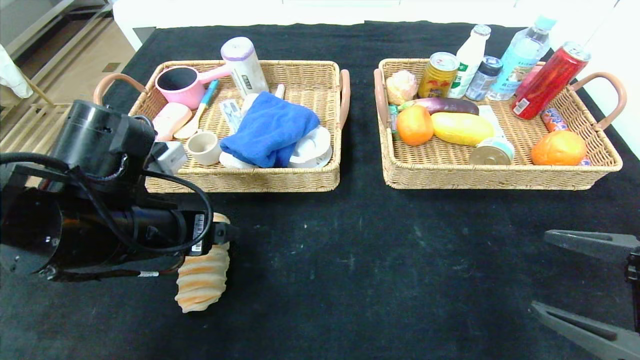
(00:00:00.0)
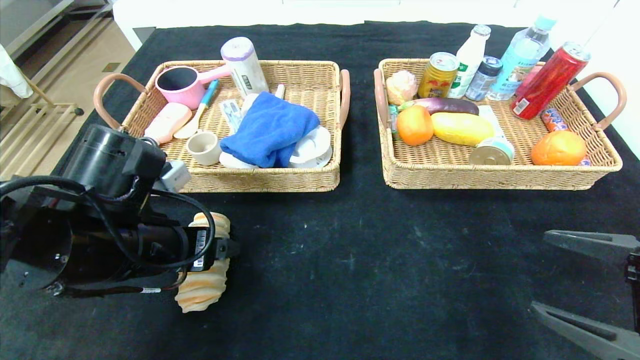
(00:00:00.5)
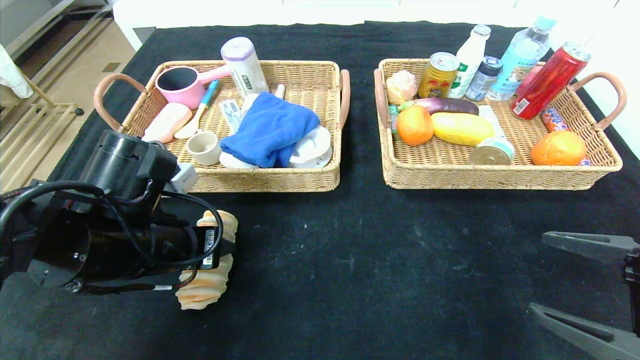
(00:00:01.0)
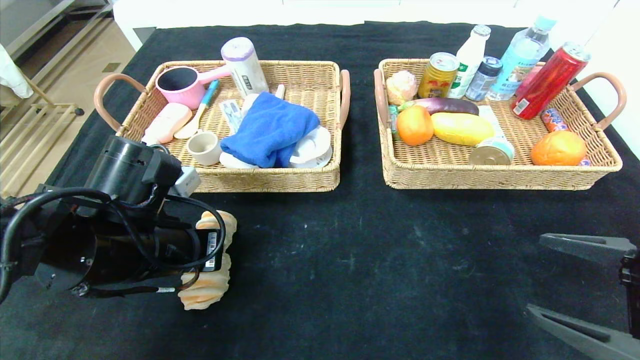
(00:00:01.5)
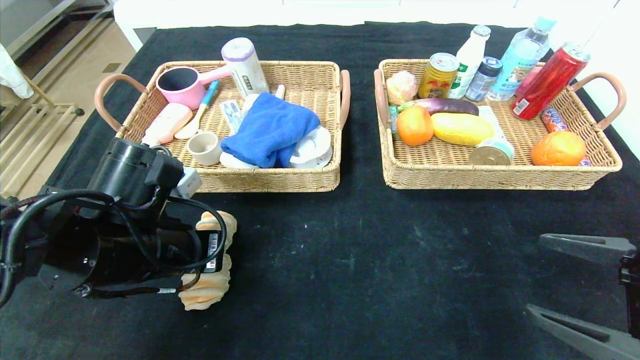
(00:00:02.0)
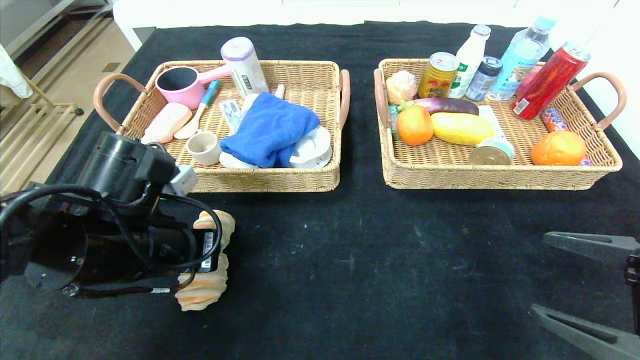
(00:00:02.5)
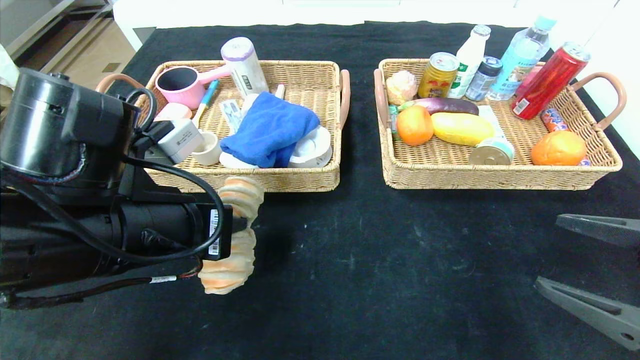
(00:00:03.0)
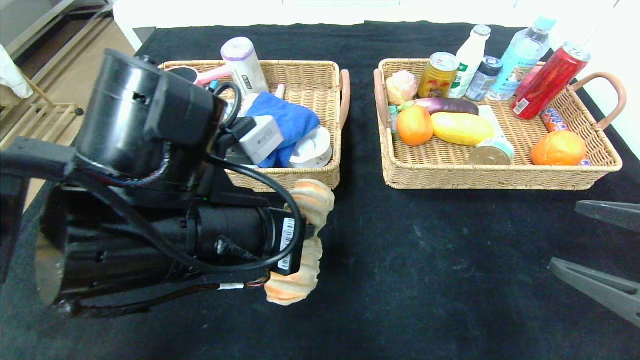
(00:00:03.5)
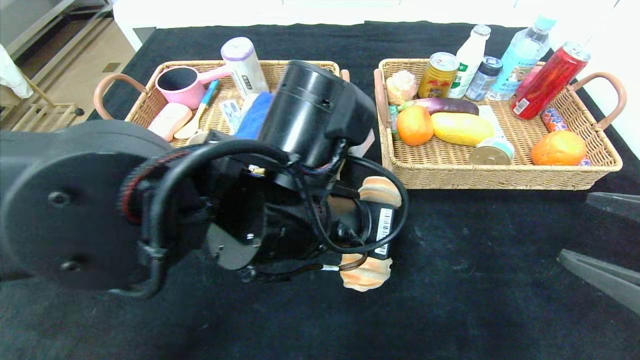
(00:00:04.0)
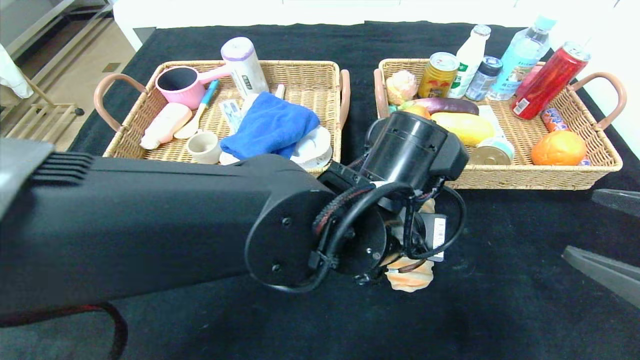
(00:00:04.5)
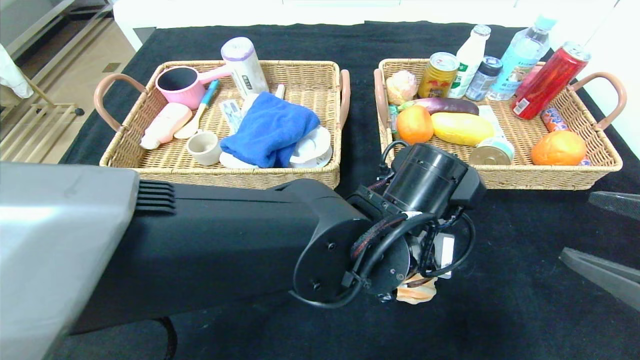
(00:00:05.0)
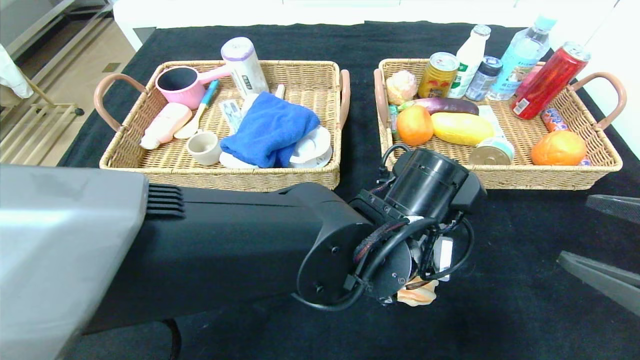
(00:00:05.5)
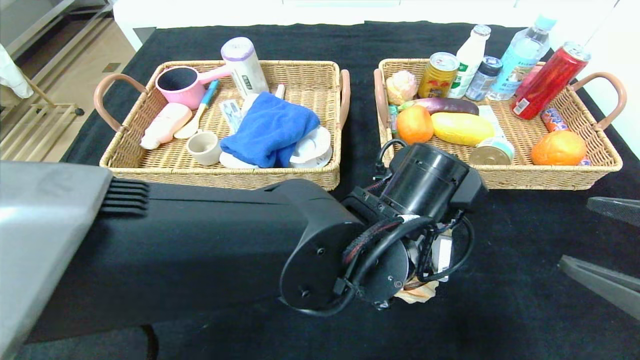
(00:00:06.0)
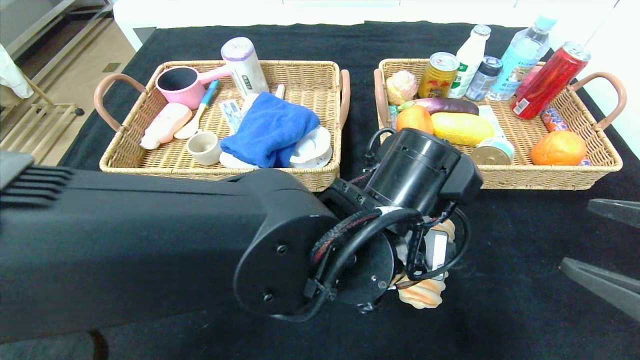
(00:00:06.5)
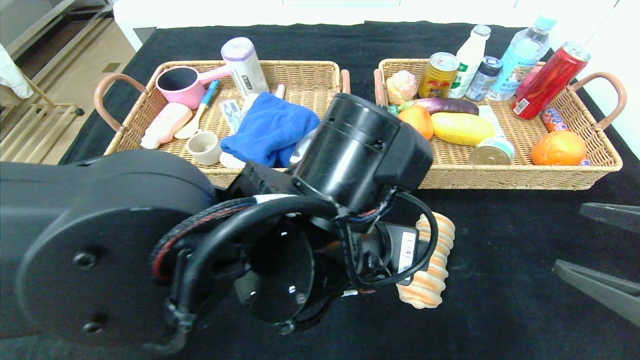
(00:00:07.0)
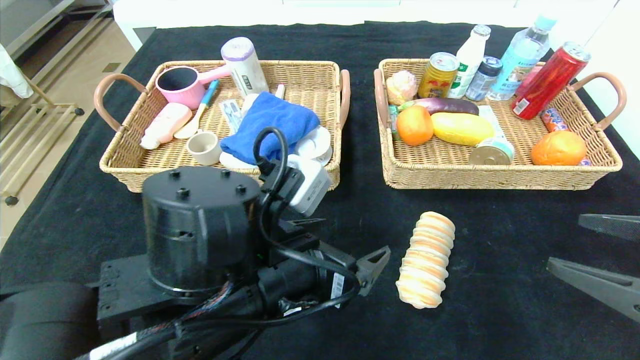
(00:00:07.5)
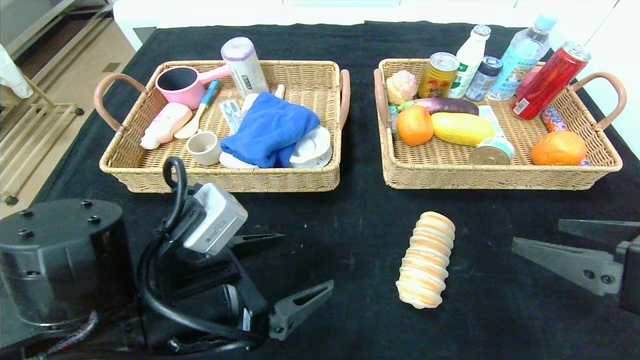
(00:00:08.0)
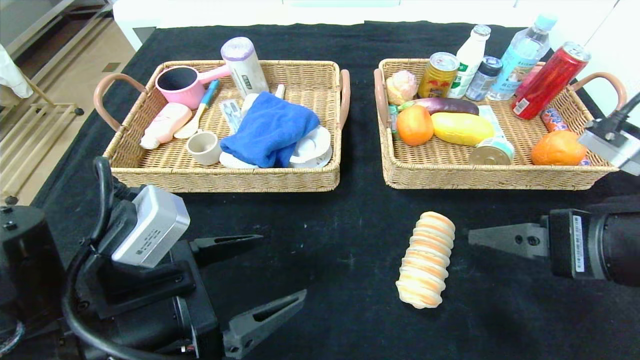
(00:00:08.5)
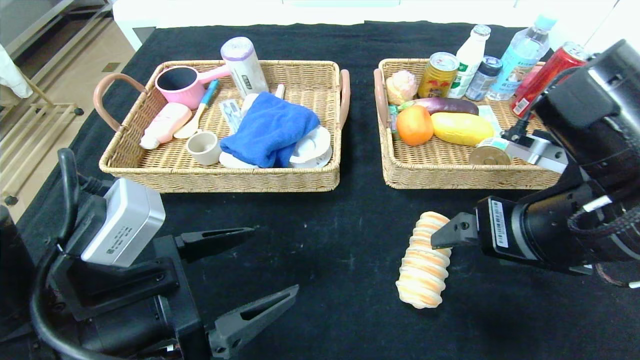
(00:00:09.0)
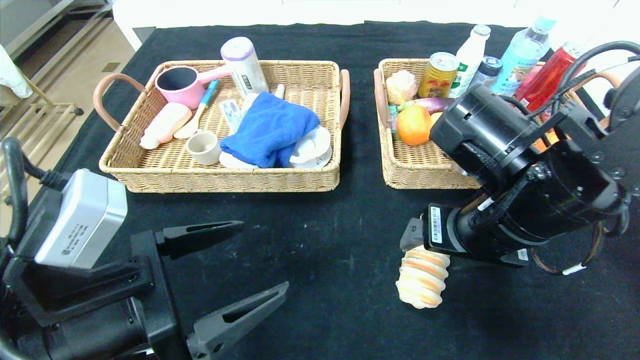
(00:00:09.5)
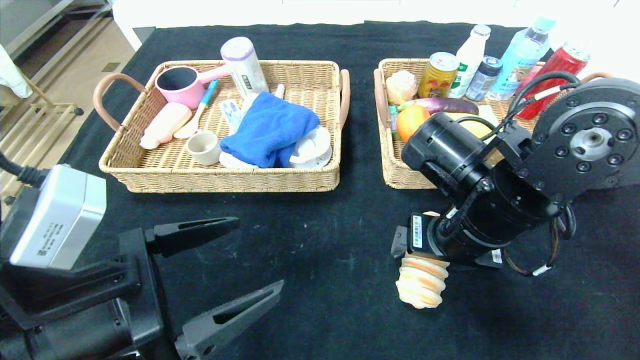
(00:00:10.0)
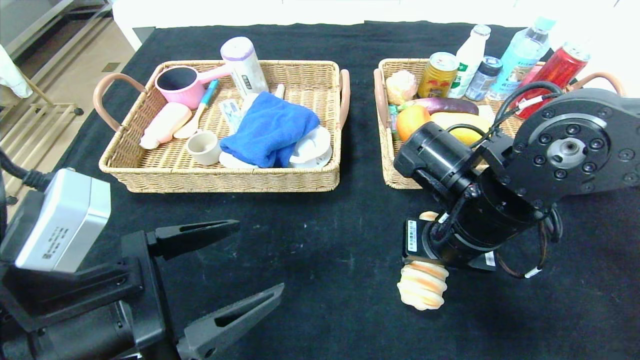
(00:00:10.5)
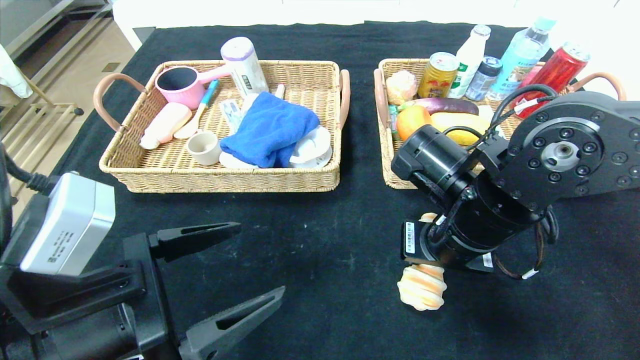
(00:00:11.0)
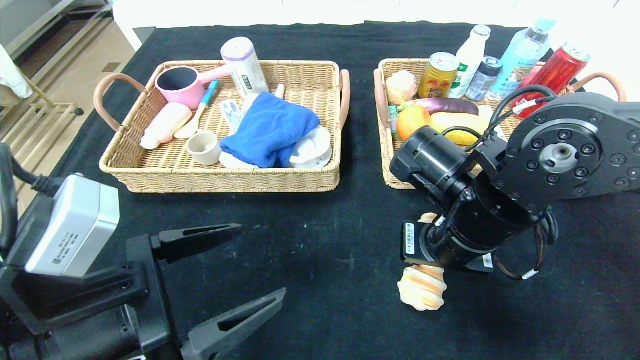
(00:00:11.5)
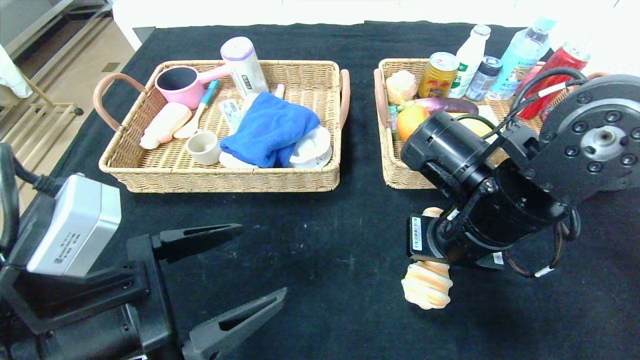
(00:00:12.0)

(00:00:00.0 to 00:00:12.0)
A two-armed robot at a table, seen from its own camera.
Step, 00:00:00.0 - 00:00:07.5: Place the long bread in the center of the table.
00:00:00.0 - 00:00:02.0: The left gripper closes.
00:00:02.0 - 00:00:04.0: The left gripper is displaced to the right by approximately 15 cm.
00:00:04.0 - 00:00:06.0: The left gripper goes about 10 cm to the right and downward, and opens.
00:00:06.0 - 00:00:08.0: The right gripper shifts by roughly 5 cm; the left gripper moves to the left, some 20 cm.
00:00:08.0 - 00:00:10.0: The left gripper ends up some 5 cm from where it was. The right gripper travels to the left and forward by some 20 cm.
00:00:10.0 - 00:00:12.0: The right gripper closes its fingers.

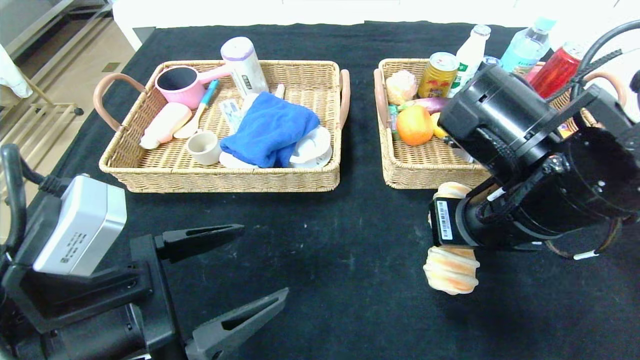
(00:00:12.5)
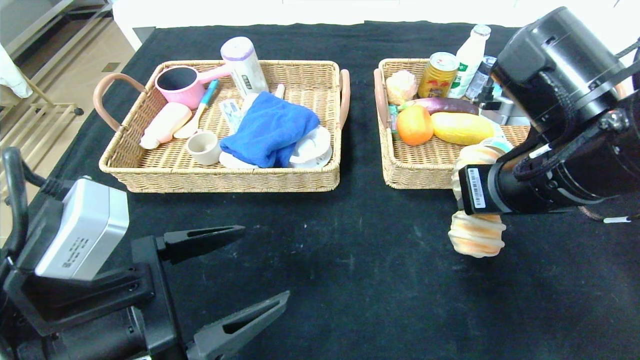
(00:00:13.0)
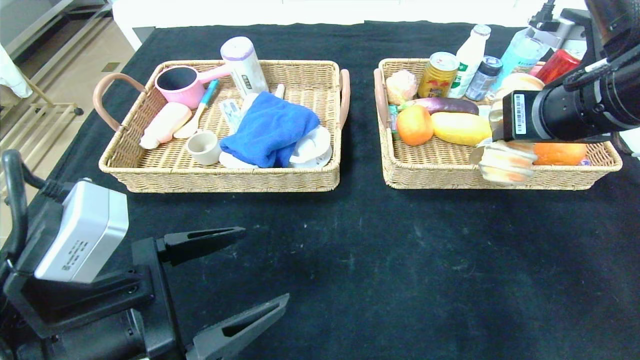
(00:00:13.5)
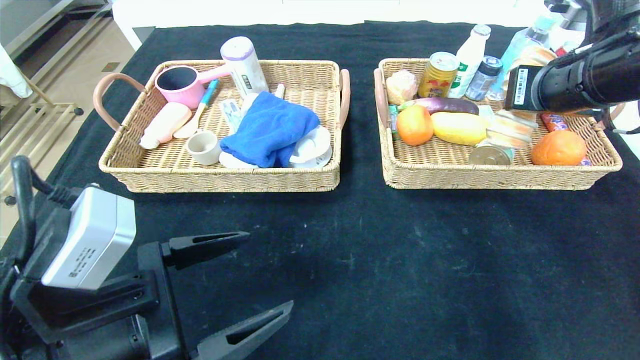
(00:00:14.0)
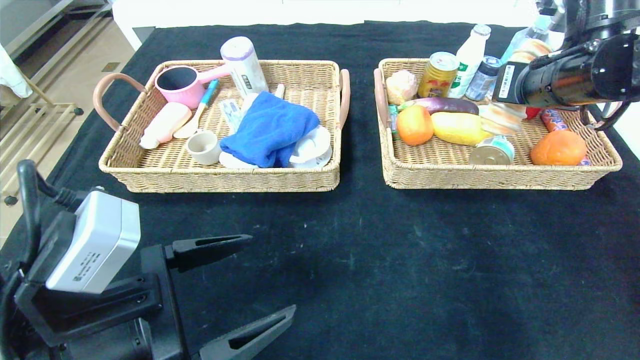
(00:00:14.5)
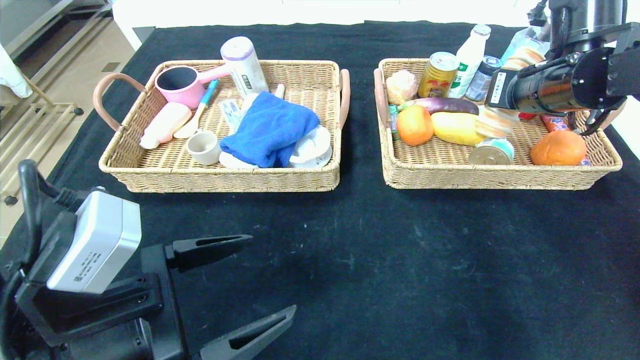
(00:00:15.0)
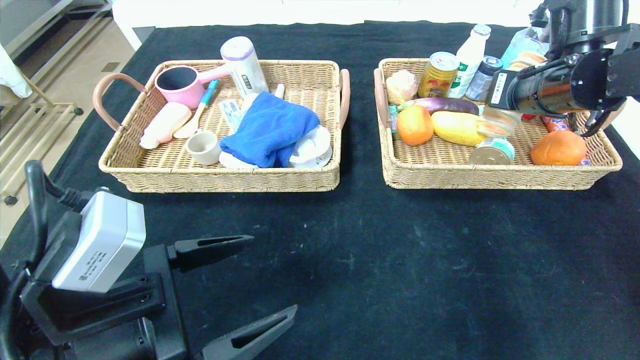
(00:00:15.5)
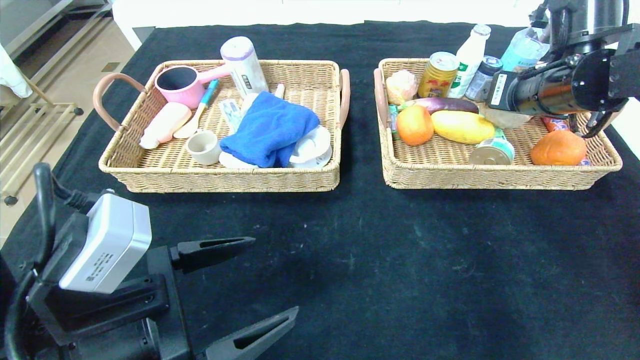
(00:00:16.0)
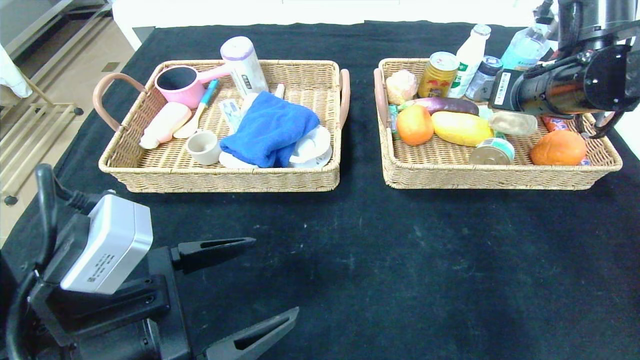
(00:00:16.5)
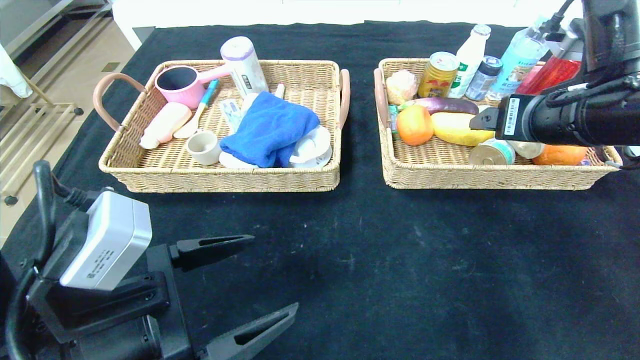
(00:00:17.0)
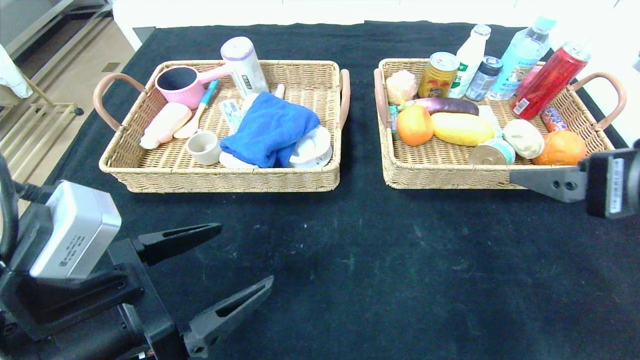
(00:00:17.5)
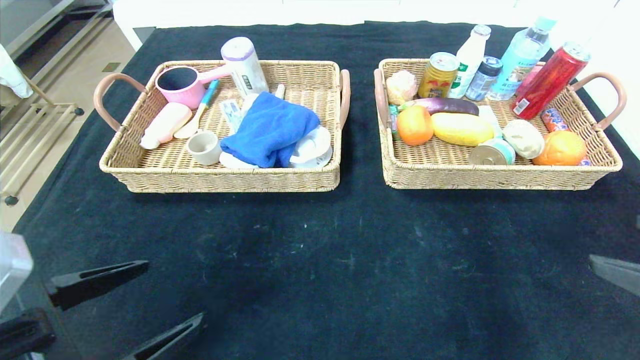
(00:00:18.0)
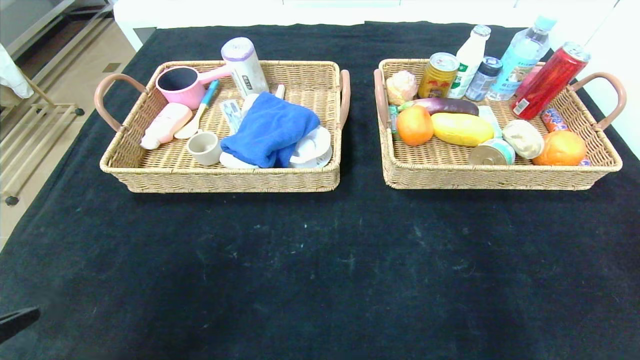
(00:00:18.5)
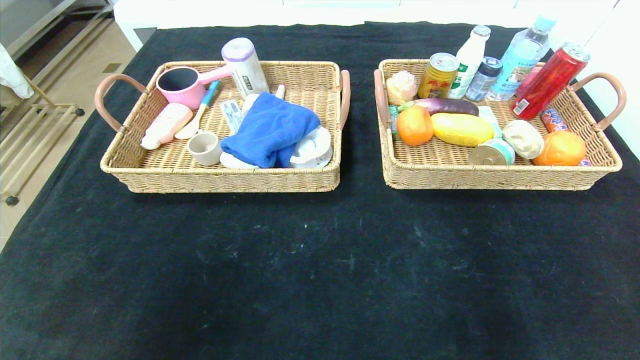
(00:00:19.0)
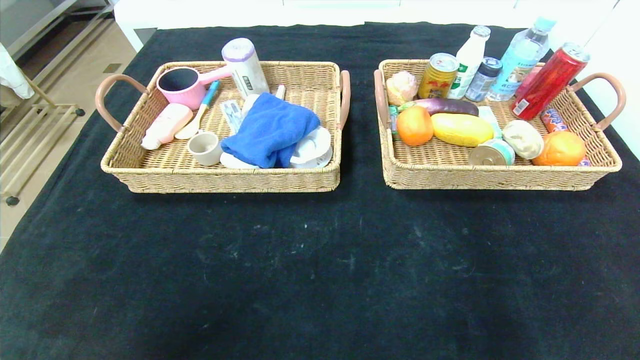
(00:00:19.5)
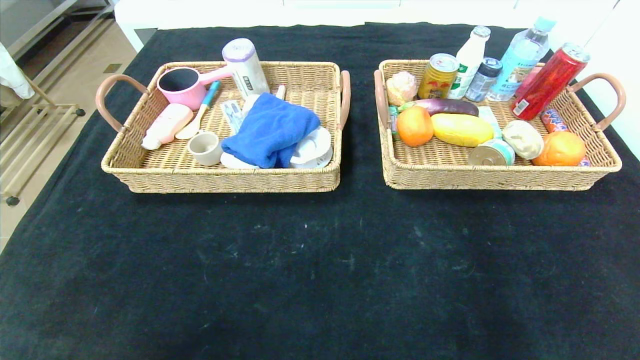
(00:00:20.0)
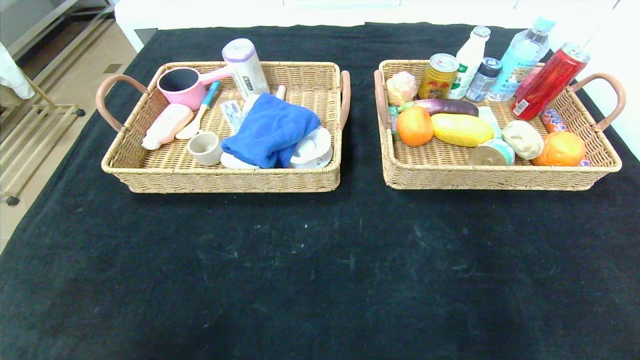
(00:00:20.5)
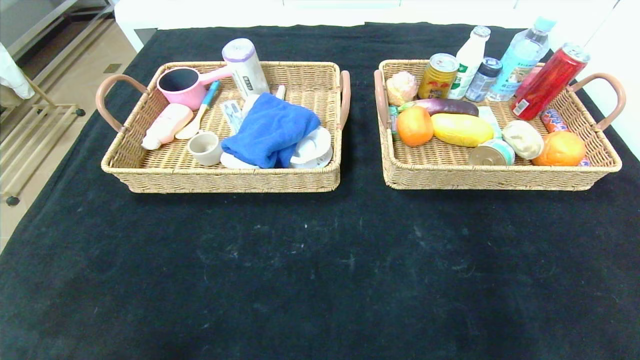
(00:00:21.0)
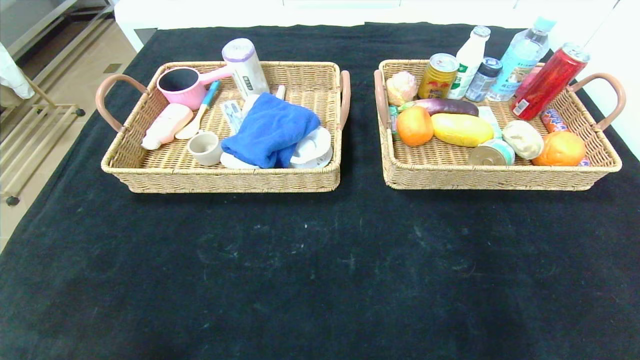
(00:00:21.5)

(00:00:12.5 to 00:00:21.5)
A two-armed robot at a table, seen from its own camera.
Step, 00:00:12.5 - 00:00:17.5: Pick up the long bread and put it in the right basket.
00:00:12.5 - 00:00:14.5: The right gripper goes roughly 15 cm forward, to the right and upward.
00:00:14.5 - 00:00:17.0: The right gripper moves backward, roughly 5 cm, and opens its fingers.
00:00:17.0 - 00:00:19.5: The right gripper moves backward, approximately 35 cm. Meanwhile the left gripper moves backward and to the left, roughly 25 cm.
